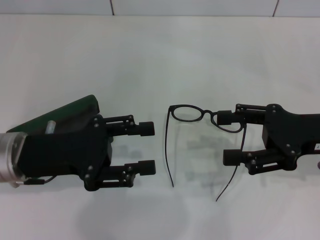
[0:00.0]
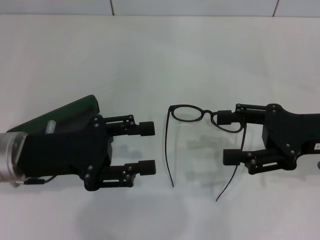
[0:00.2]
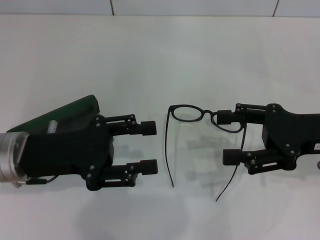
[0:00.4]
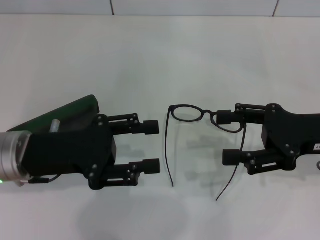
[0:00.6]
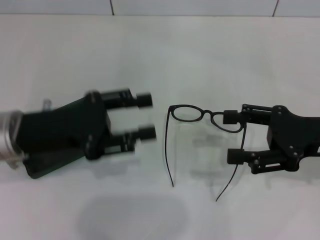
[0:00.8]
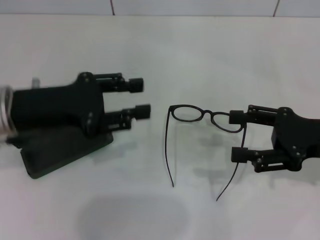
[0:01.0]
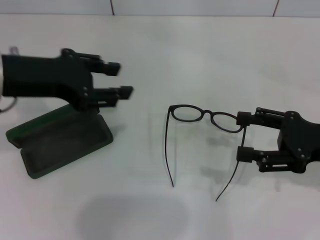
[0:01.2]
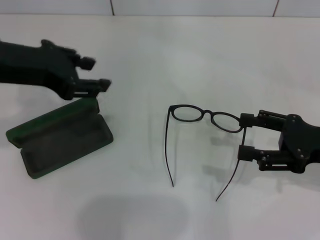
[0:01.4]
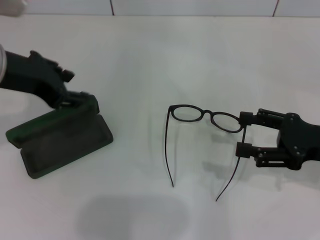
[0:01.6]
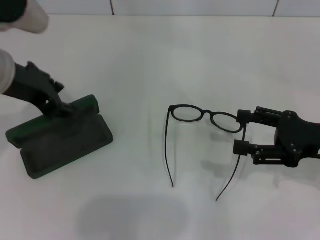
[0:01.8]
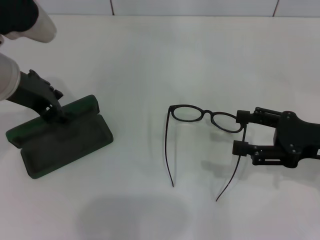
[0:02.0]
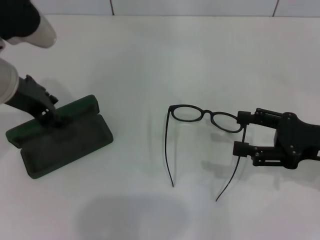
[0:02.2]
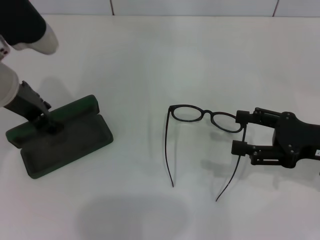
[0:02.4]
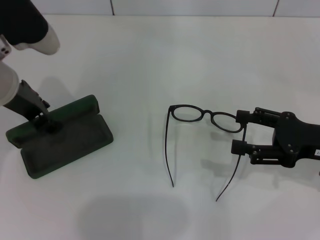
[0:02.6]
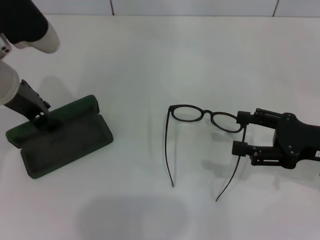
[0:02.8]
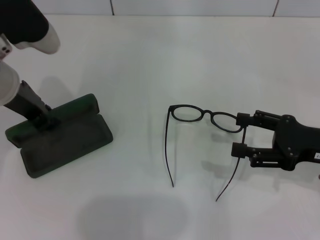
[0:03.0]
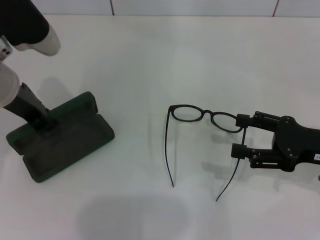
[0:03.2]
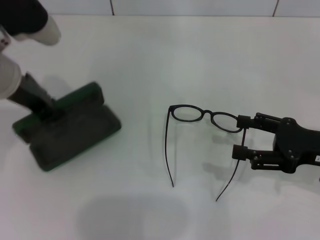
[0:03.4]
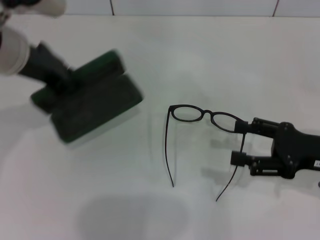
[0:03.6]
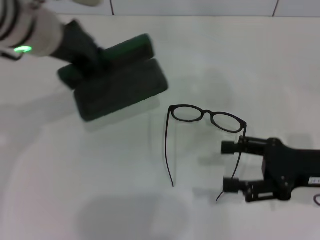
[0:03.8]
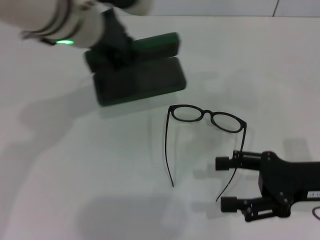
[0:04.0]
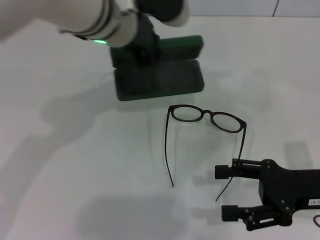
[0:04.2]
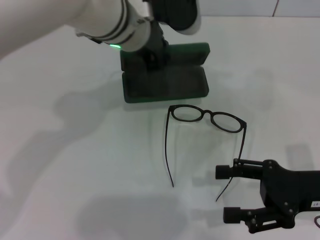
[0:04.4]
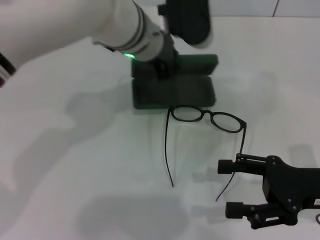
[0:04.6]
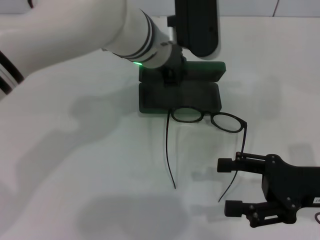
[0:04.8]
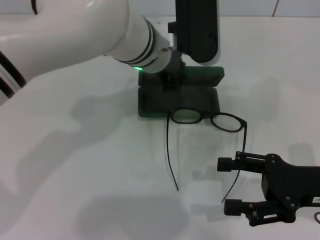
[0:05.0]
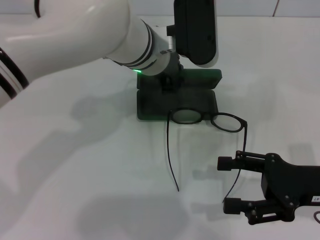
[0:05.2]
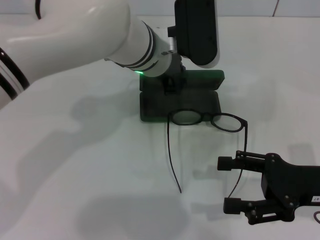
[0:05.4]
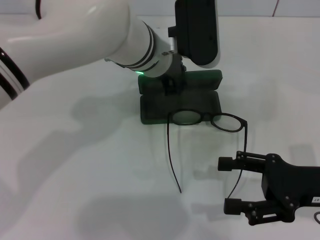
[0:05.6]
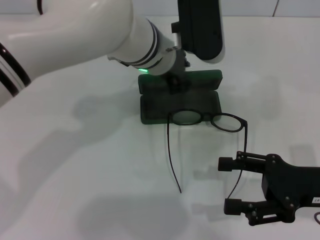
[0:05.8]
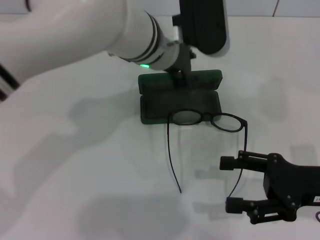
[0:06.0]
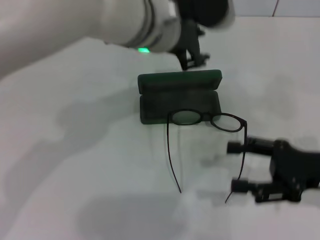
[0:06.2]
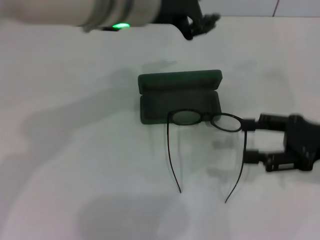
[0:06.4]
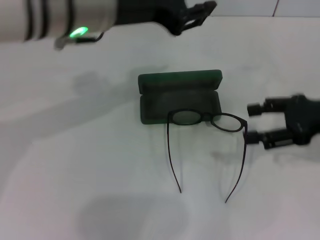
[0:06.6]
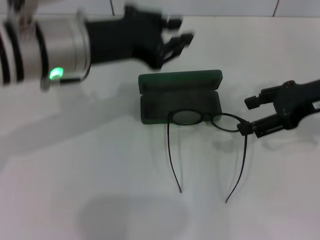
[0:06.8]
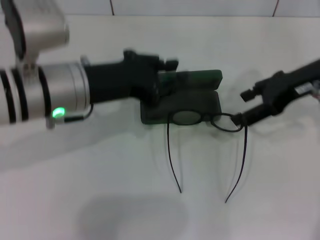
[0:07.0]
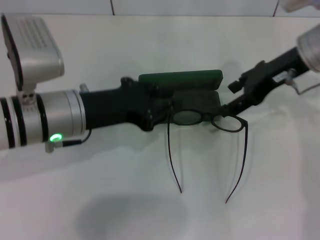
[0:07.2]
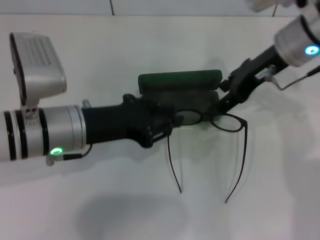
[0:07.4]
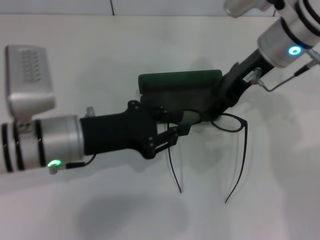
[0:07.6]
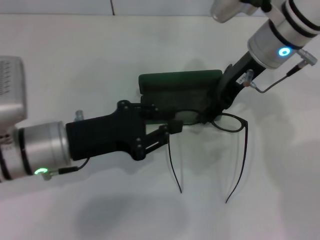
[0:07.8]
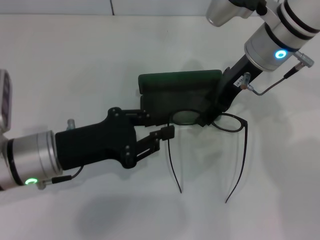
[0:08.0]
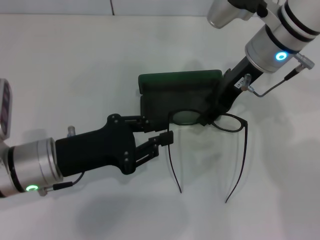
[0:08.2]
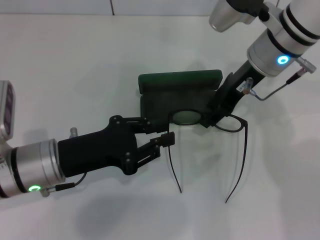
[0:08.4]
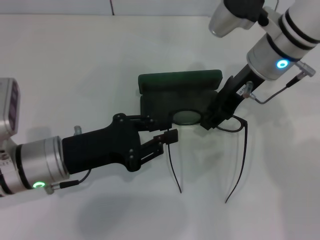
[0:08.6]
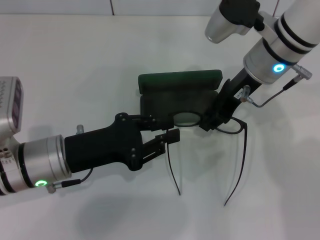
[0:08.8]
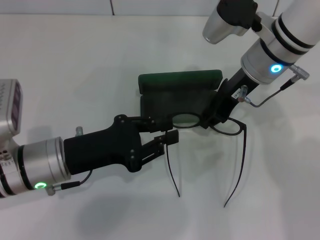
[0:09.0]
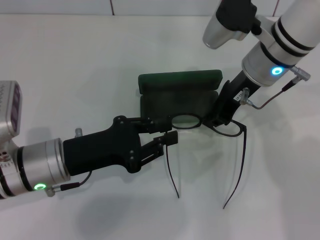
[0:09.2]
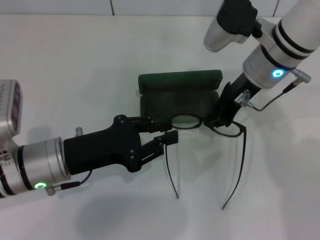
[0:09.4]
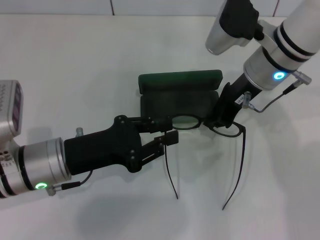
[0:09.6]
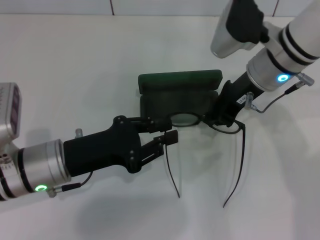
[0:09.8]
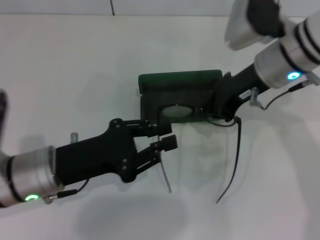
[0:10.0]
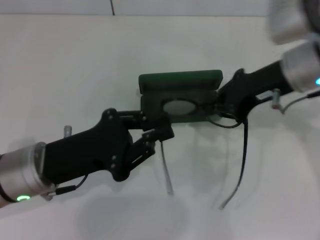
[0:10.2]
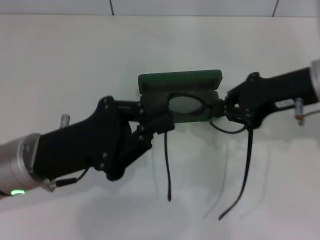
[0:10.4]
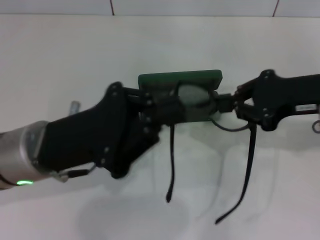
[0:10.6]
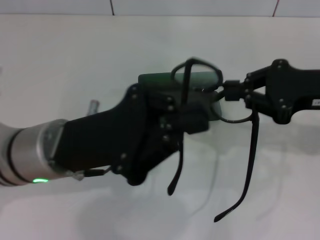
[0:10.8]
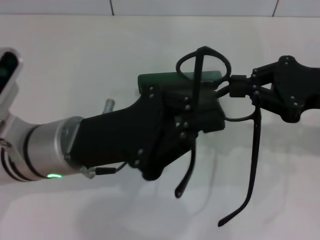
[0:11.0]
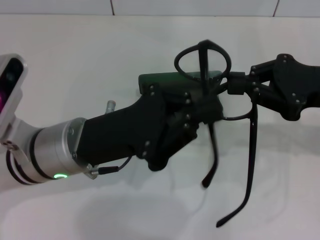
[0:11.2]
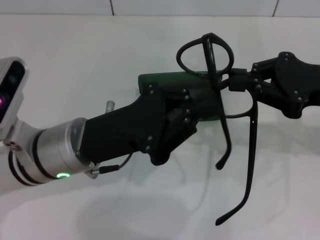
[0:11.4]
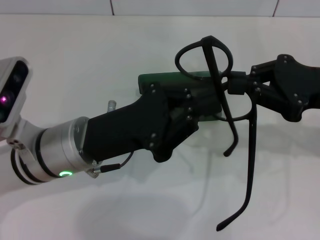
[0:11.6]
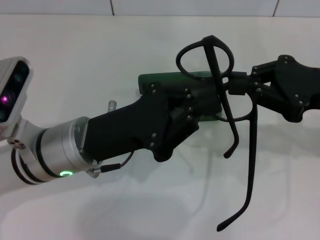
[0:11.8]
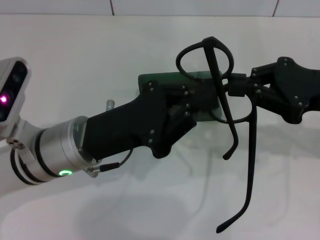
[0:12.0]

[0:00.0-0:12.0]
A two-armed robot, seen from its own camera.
Step, 0:00.0 to 0:03.0: Grab the glasses case with your left hand.
Step, 0:03.2 to 0:05.6: Place the glasses case in the center of the table with your left hand.
Step, 0:05.8 to 0:09.6: Grab the eyeglass frame with your right hand.
0:00.0 to 0:01.6: The left gripper heads upward and forward, covering some 15 cm.
0:01.6 to 0:03.0: The left gripper moves about 5 cm.
0:03.0 to 0:04.4: The left gripper heads to the right, covering approximately 15 cm, and closes up.
0:06.0 to 0:07.6: The right gripper shifts approximately 25 cm forward, to the left and upward, while the left gripper moves to the left, backward and downward, approximately 20 cm.
0:07.6 to 0:09.0: The right gripper closes up.
0:09.0 to 0:10.4: The right gripper goes about 10 cm to the right and backward, and closes its fingers.
0:10.4 to 0:12.0: The left gripper changes place by some 5 cm; the right gripper shifts by about 5 cm.

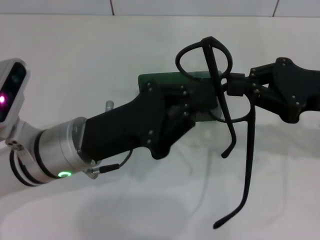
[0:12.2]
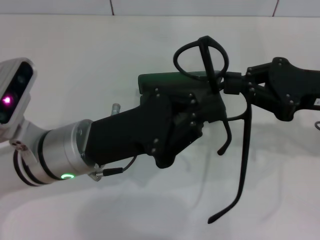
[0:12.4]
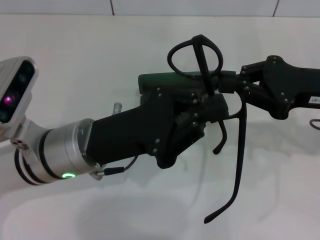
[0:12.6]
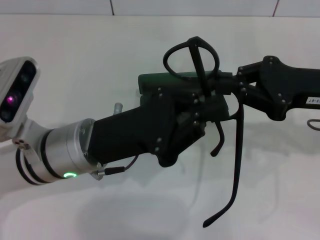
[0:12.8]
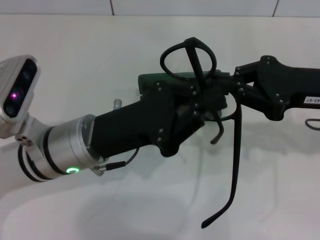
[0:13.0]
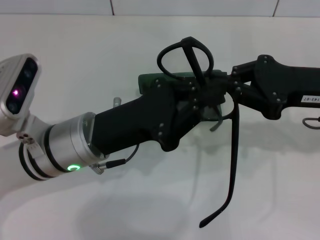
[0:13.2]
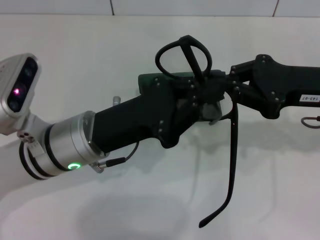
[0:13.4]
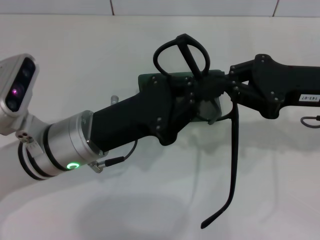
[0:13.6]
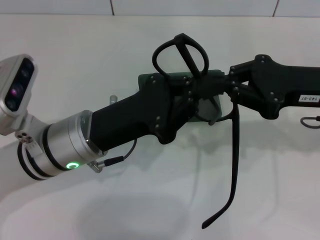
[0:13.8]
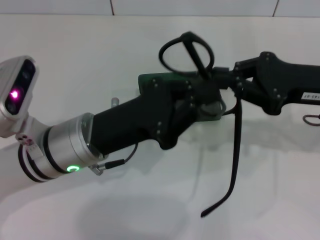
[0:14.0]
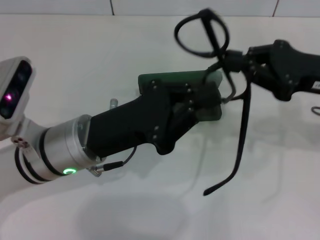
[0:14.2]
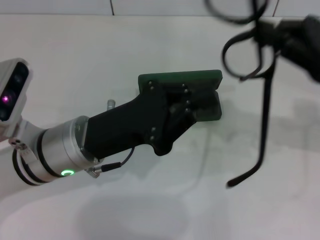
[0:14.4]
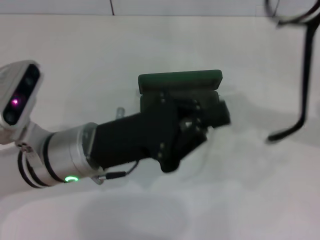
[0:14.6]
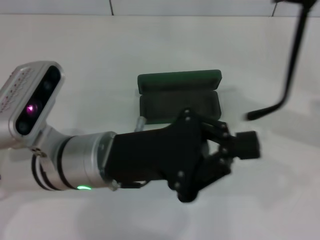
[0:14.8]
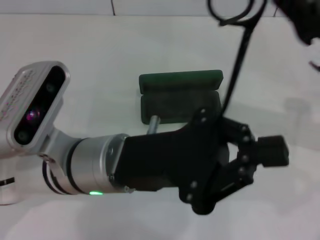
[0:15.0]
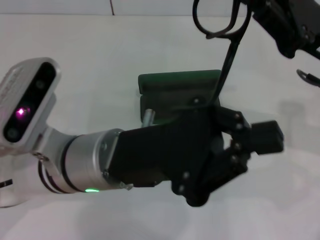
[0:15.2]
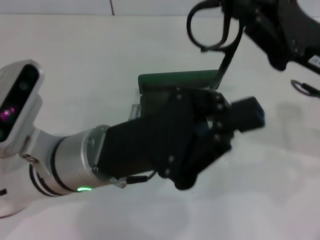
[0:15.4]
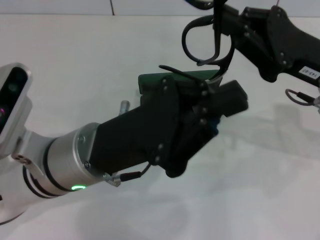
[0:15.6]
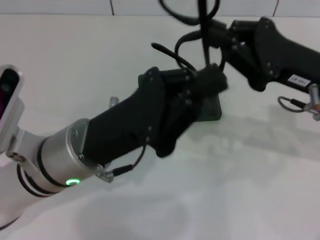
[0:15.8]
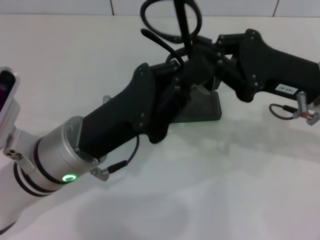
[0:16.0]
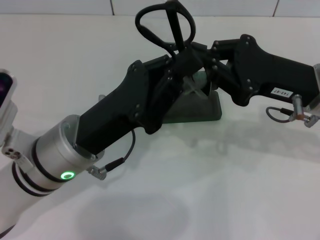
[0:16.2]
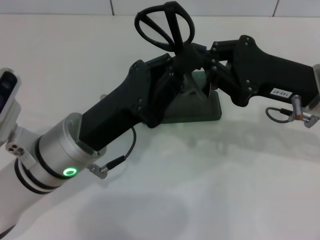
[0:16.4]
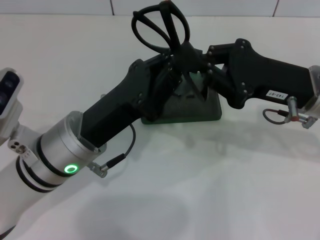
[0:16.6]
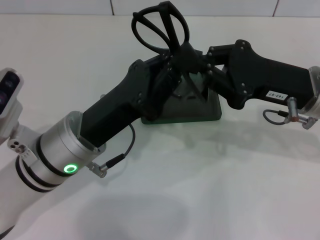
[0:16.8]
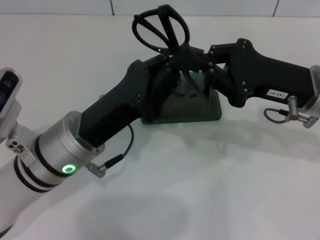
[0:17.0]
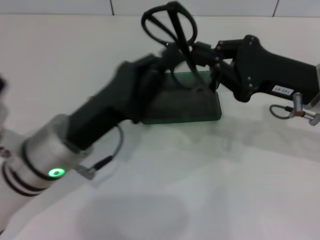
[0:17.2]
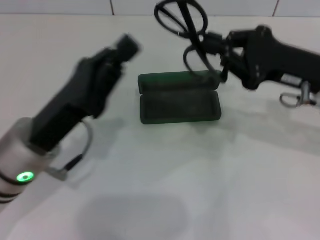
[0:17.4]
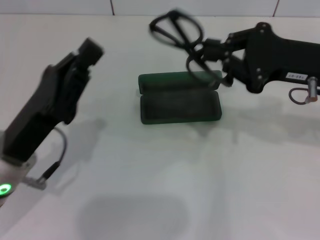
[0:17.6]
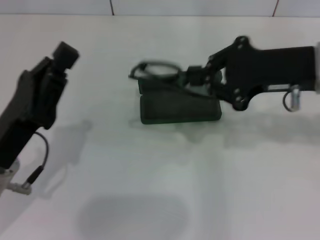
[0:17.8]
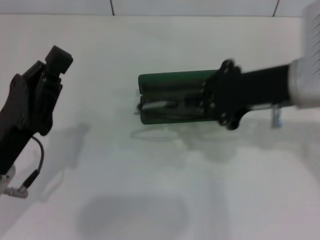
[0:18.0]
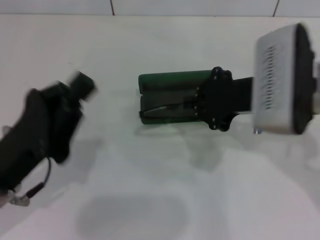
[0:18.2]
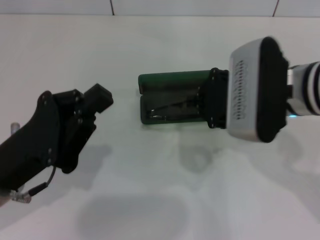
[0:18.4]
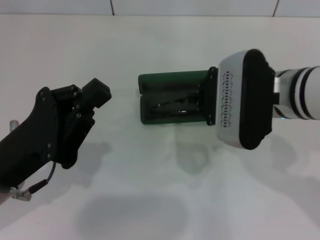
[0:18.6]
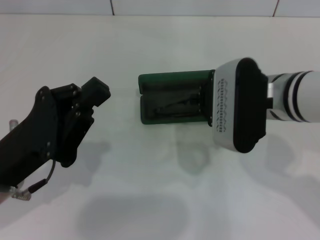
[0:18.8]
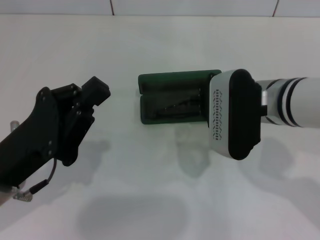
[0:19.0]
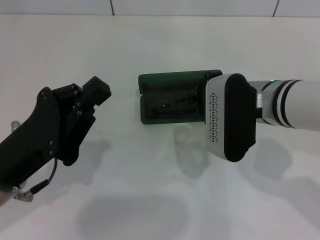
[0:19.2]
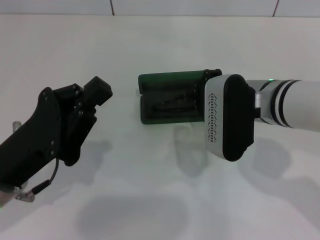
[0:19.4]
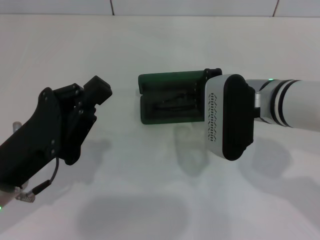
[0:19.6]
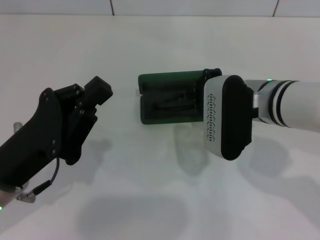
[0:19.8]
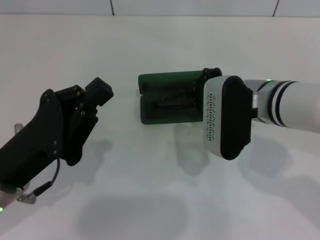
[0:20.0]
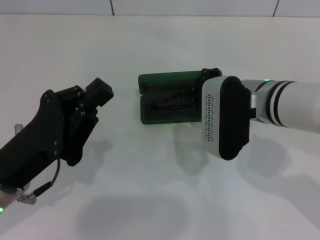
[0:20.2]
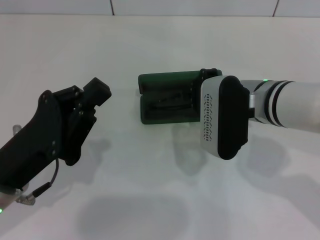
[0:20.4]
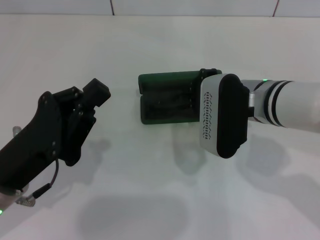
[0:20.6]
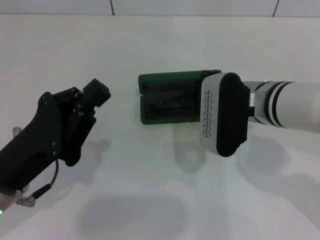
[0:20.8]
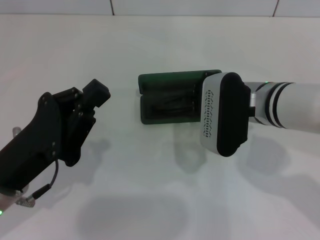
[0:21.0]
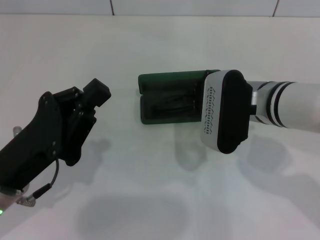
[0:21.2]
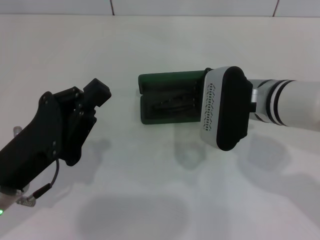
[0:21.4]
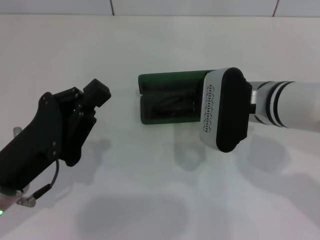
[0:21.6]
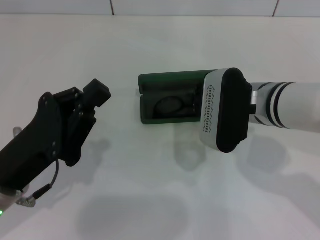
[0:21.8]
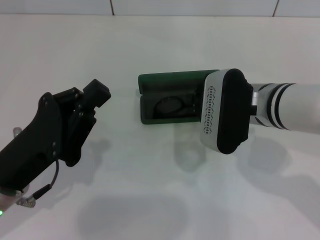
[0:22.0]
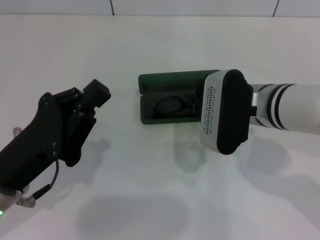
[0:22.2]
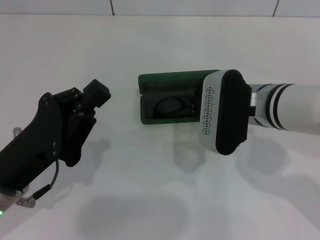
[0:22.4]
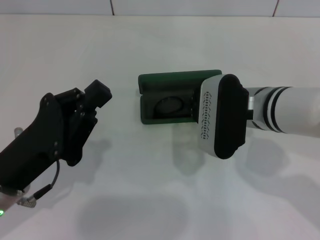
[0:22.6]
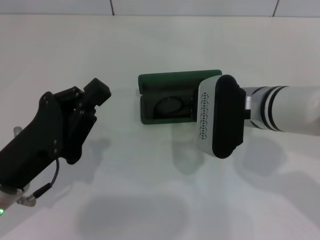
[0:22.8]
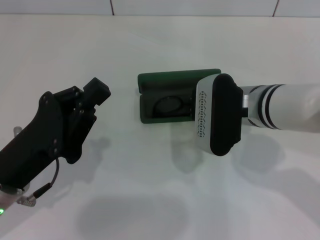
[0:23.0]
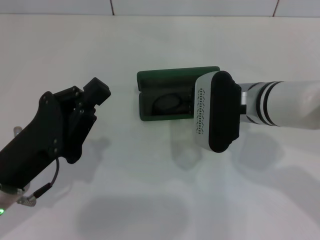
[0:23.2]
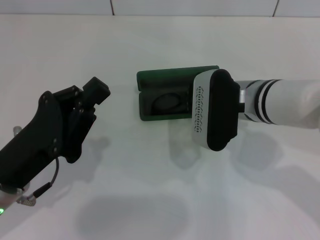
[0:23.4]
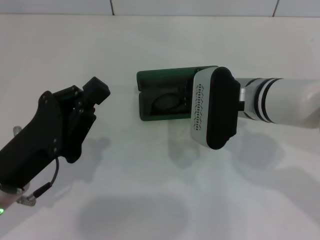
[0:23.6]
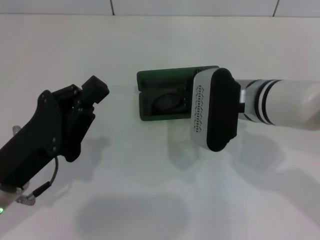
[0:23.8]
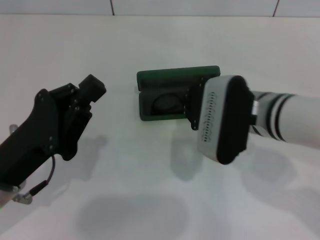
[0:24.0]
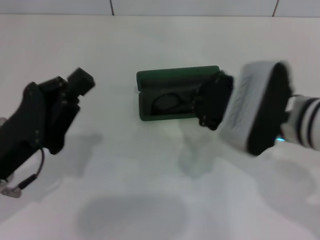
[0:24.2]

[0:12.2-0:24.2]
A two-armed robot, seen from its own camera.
Step, 0:12.2 to 0:17.0: Lift the glasses with your right hand.
Step, 0:17.2 to 0:23.2: Put the glasses into the case with your right hand.
0:12.2 to 0:13.8: There are only small adjustments of the grippers.
0:13.8 to 0:15.2: The left gripper moves approximately 5 cm.
0:15.2 to 0:16.6: The left gripper shifts by about 5 cm.
0:16.6 to 0:18.2: The left gripper heads to the left and backward, covering approximately 10 cm. The right gripper ends up about 5 cm from where it was.
0:18.2 to 0:19.8: The right gripper shifts about 5 cm downward.
0:19.8 to 0:21.2: The grippers move only a little.
0:21.2 to 0:22.6: Both grippers stay put.
